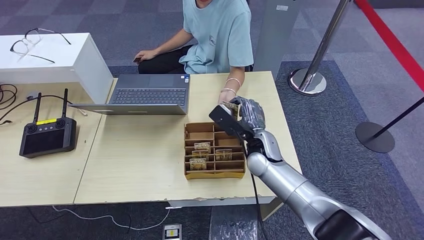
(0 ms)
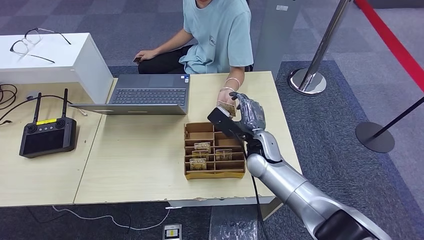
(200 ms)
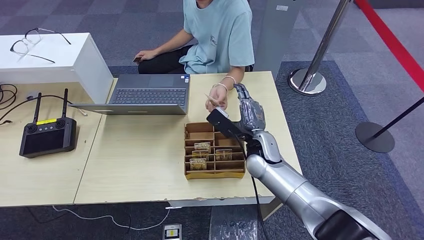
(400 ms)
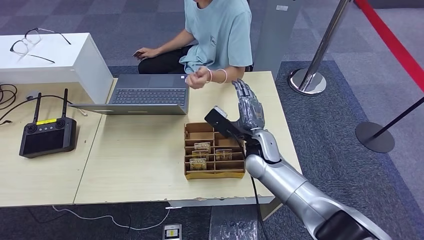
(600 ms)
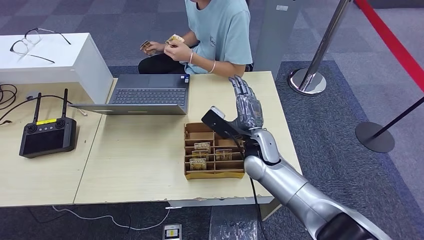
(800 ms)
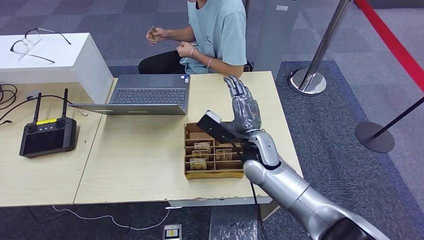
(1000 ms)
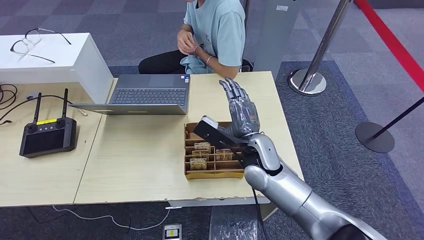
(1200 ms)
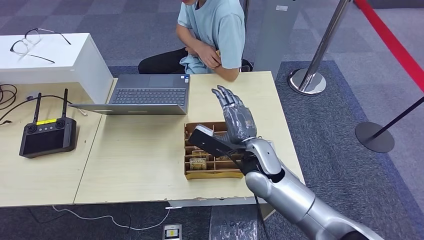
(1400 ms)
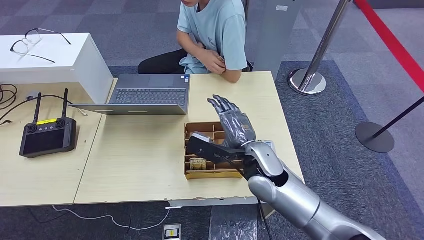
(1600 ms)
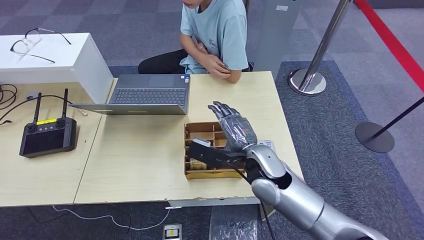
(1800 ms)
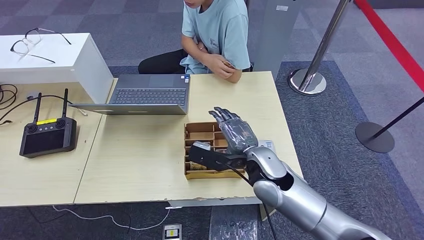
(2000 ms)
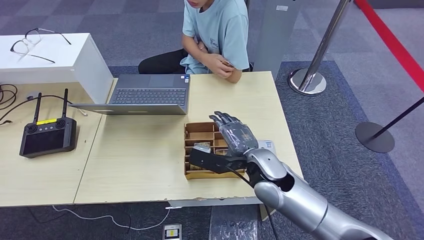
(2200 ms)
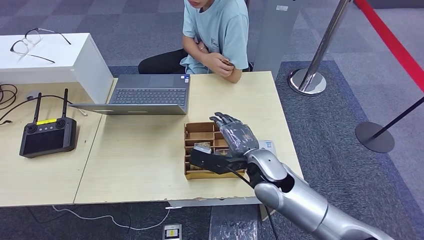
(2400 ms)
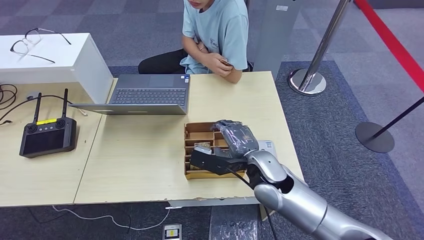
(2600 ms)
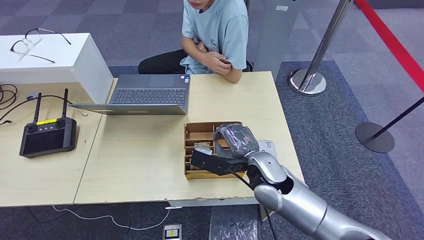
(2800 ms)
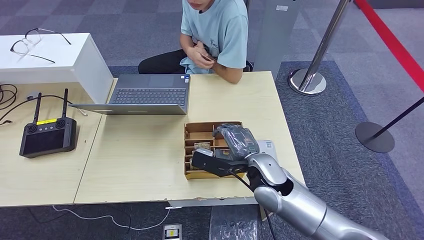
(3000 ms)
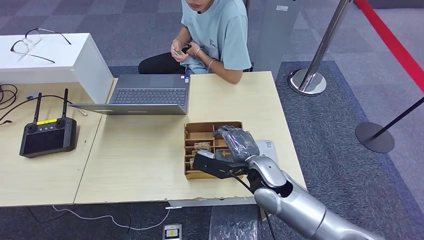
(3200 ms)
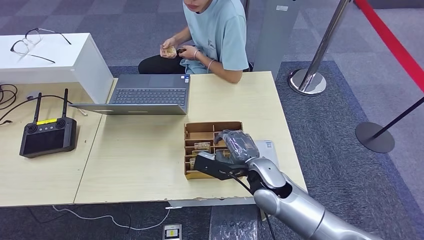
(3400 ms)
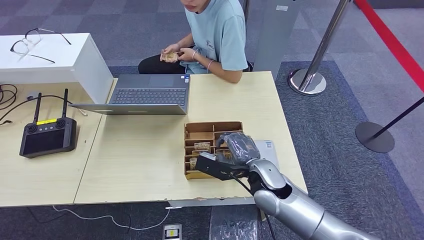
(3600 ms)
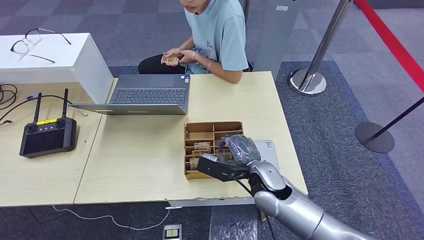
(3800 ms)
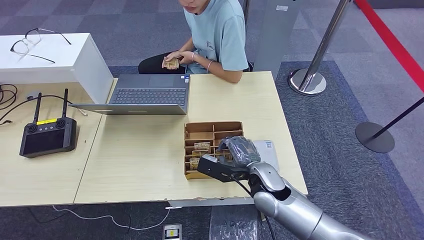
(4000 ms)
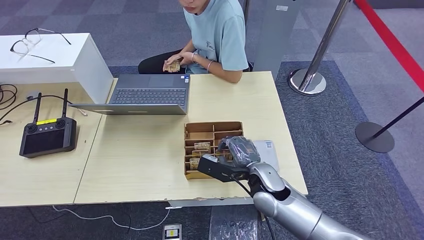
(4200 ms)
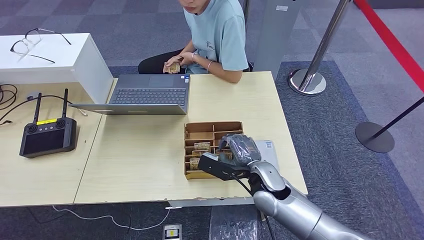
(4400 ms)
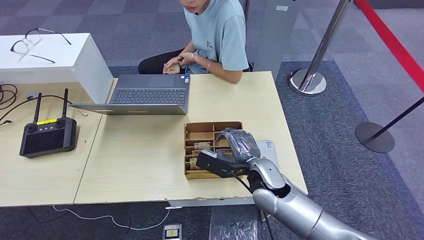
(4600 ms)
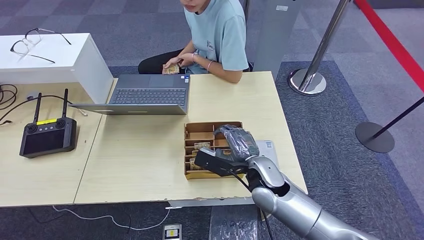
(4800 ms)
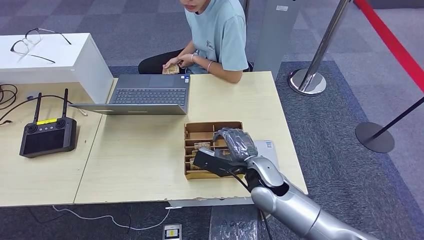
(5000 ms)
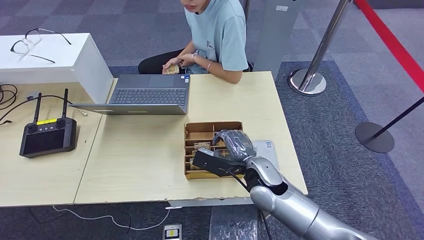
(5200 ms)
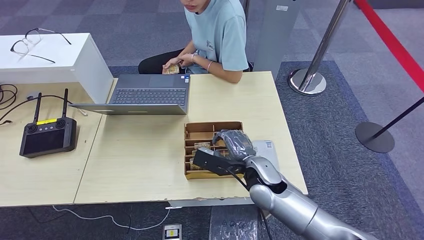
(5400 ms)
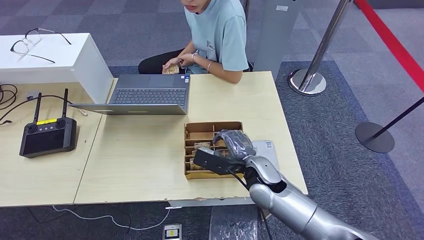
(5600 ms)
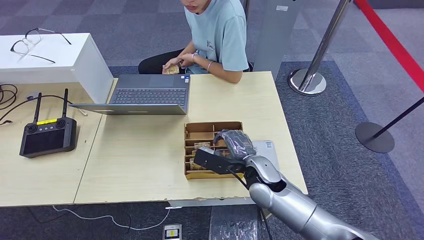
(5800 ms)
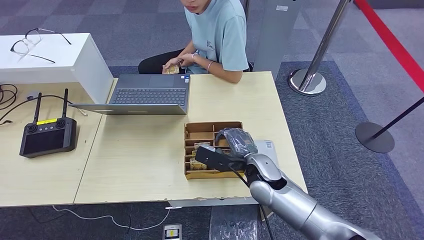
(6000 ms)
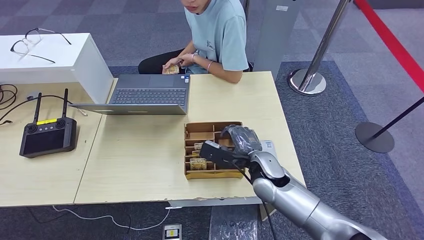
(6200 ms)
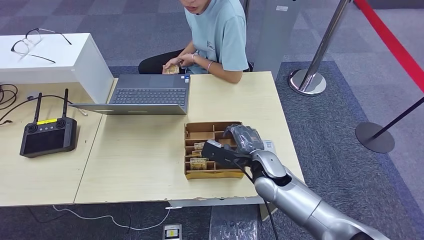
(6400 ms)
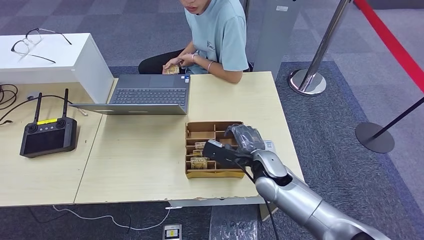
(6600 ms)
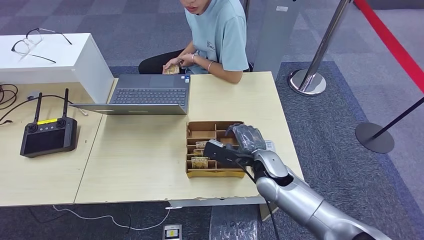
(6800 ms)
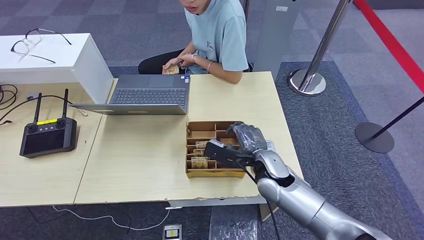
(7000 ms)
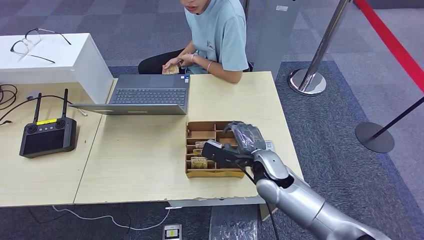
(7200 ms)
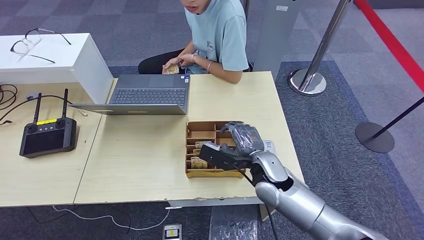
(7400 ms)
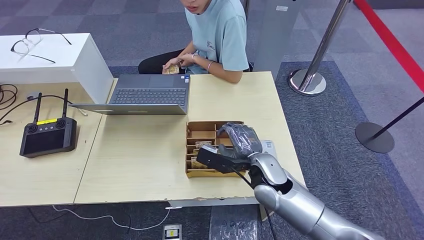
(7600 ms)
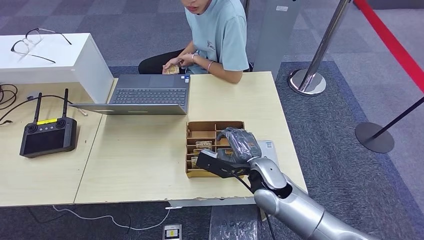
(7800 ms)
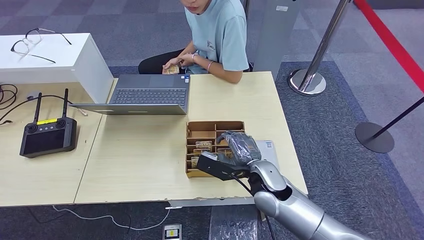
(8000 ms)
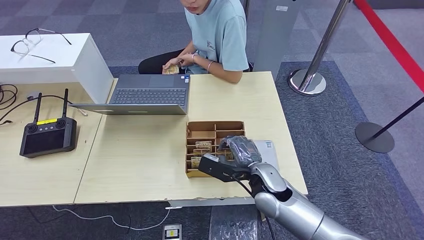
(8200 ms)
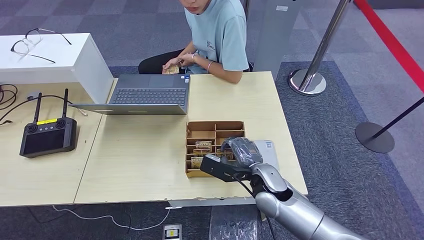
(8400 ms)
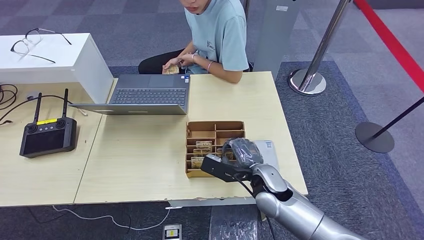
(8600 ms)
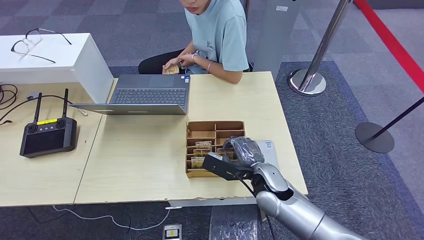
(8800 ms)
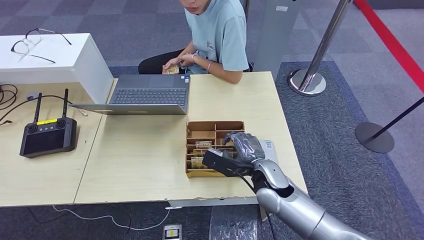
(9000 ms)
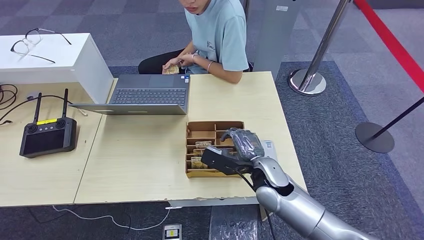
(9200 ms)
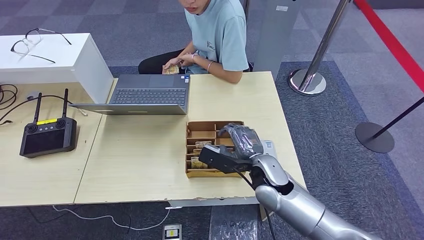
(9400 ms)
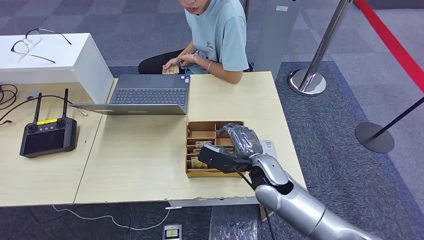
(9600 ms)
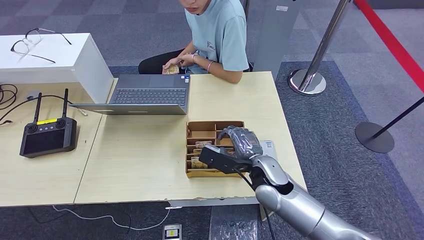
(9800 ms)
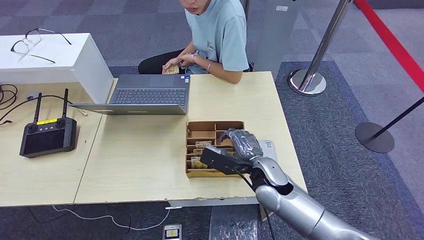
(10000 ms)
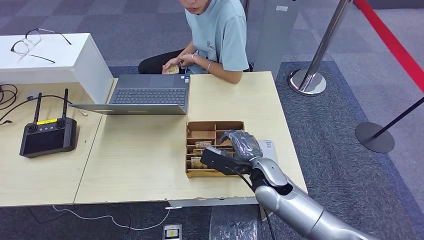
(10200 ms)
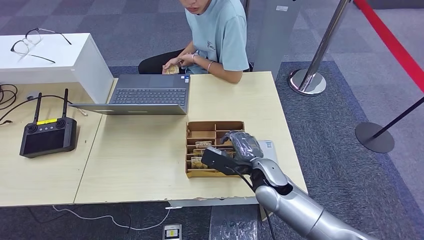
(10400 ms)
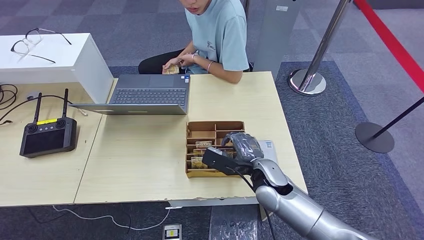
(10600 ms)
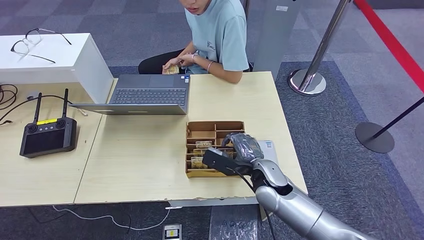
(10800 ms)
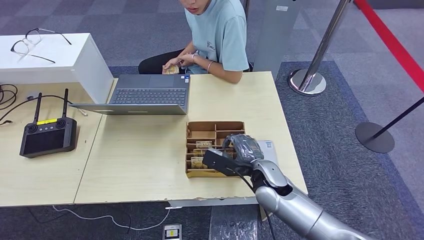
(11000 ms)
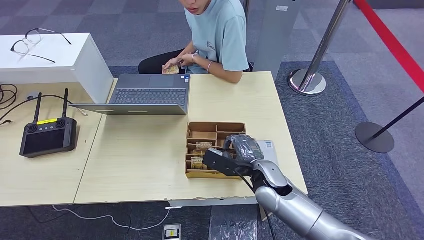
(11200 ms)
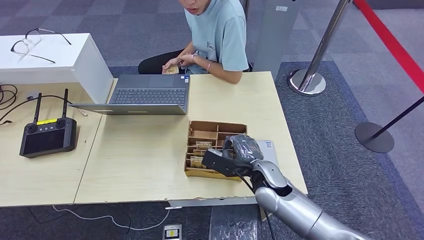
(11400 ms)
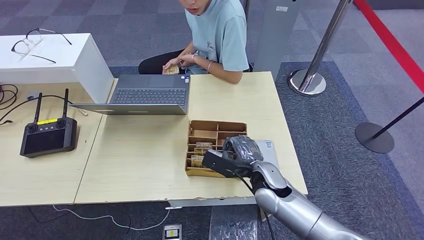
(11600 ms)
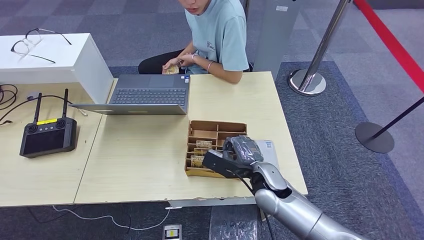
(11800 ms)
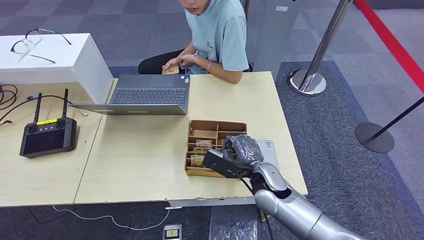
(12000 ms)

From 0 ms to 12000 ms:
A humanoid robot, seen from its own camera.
Step, from 0 ms to 2000 ms: Hand the ID card to the person.
From 0 ms to 1600 ms: The right hand is displaced backward by about 5 cm.
From 1600 ms to 3000 ms: The hands make only small movements.
From 3000 ms to 10400 ms: The hands make only small movements.
From 10400 ms to 12000 ms: Neither hand changes place.

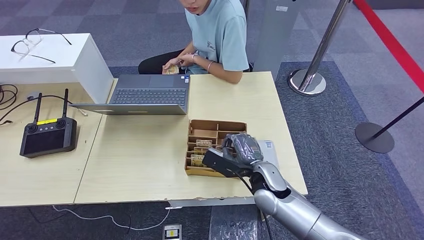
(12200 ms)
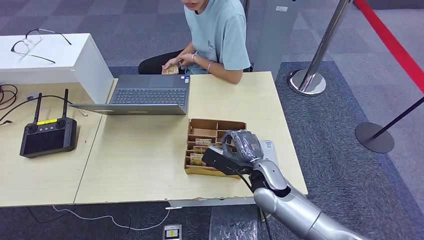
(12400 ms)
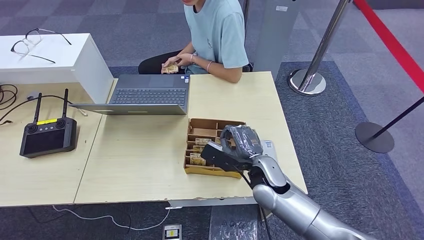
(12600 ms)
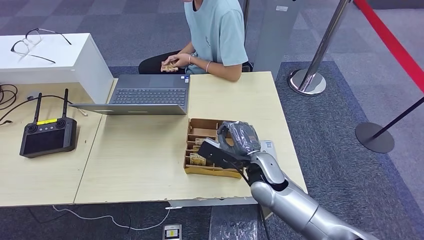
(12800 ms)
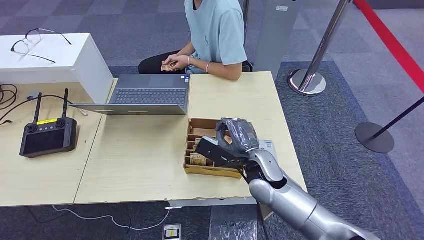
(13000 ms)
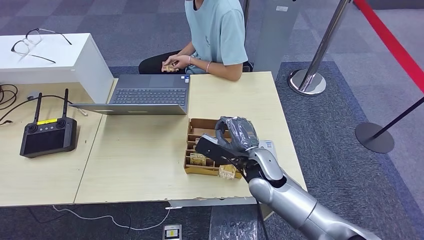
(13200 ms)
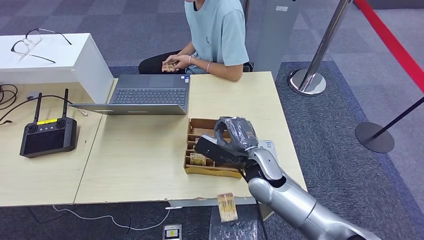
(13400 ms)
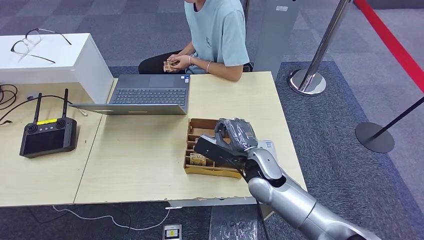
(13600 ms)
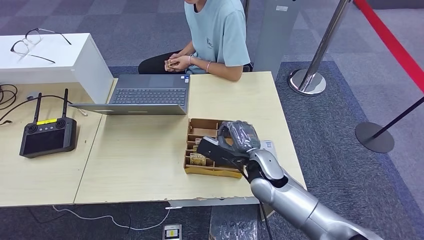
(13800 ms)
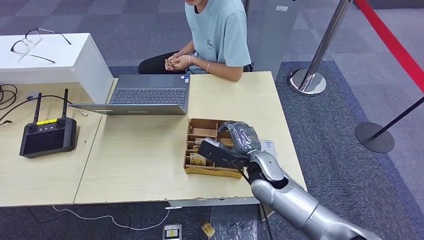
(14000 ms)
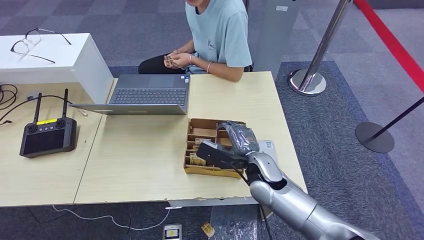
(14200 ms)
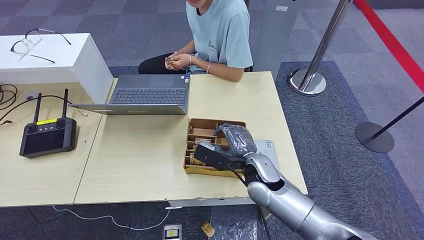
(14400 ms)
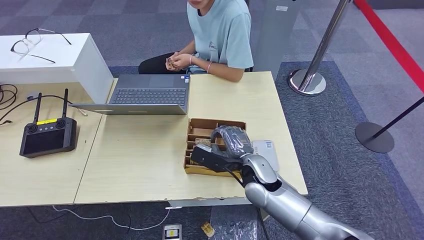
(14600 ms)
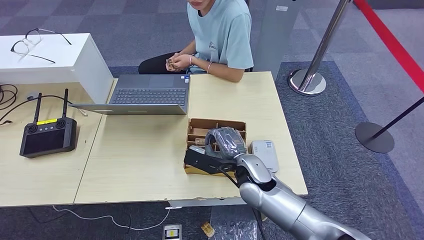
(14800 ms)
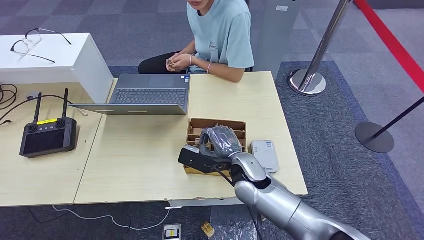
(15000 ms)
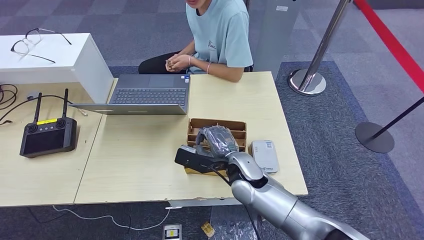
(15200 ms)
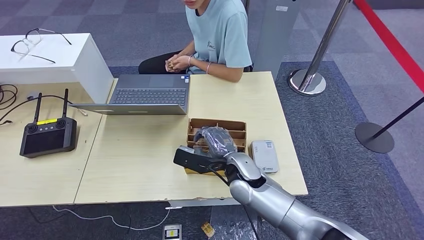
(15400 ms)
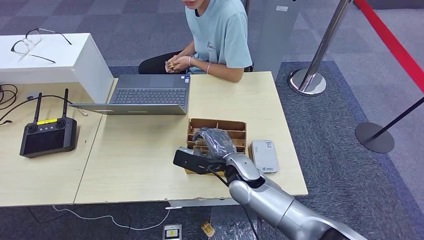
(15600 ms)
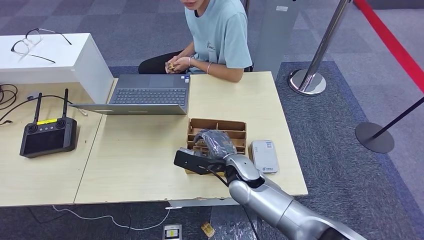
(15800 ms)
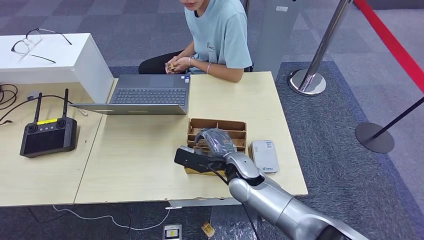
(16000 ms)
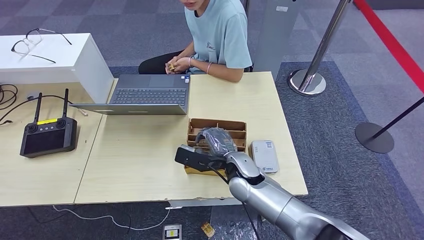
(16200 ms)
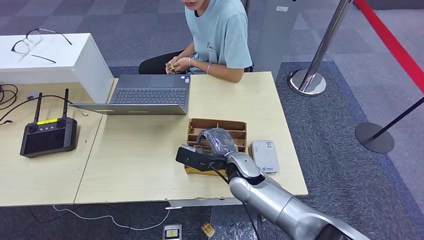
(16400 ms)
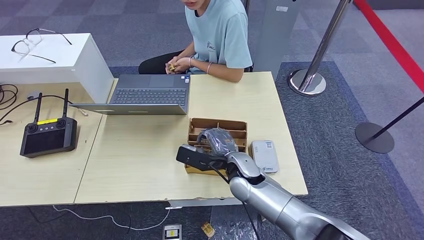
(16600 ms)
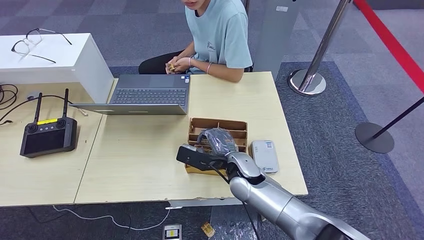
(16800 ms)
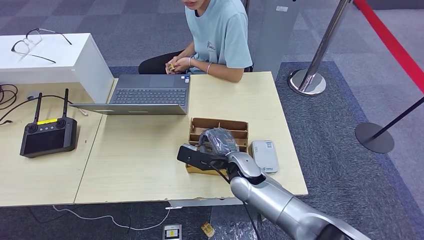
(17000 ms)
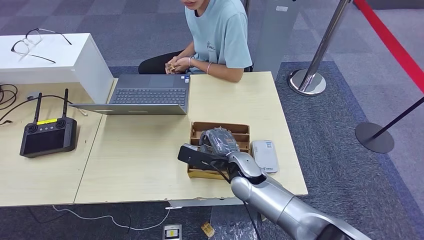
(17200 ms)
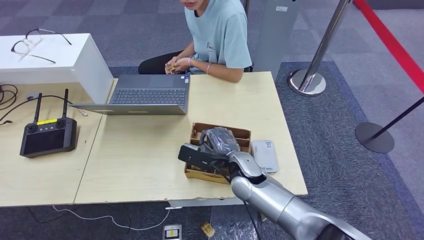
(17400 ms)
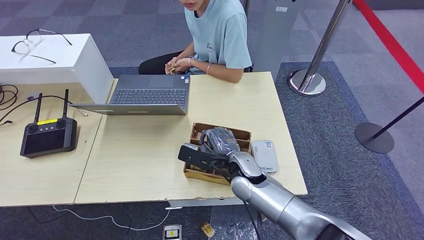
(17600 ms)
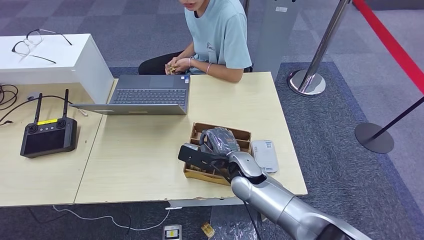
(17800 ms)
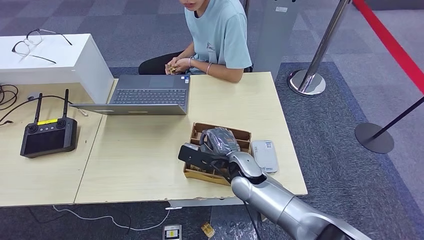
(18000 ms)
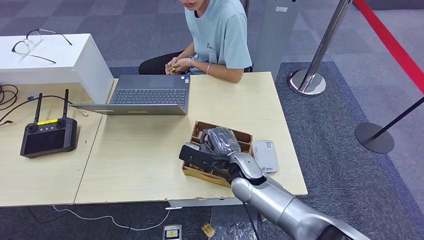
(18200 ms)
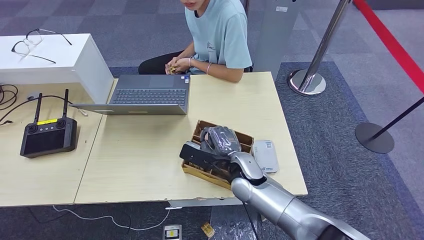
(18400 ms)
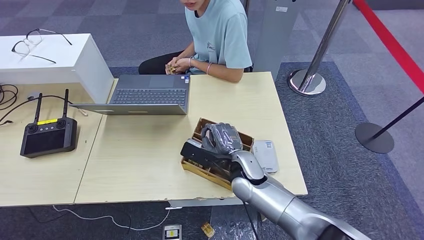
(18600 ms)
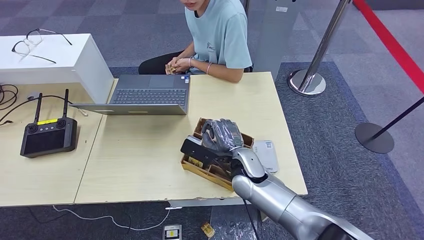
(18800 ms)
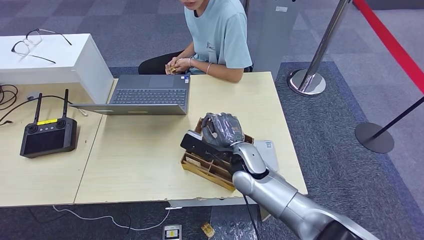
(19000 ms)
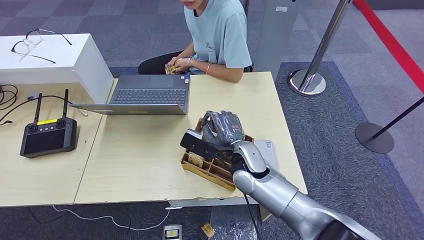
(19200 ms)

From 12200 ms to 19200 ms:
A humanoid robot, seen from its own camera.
From 12200 ms to 15000 ms: The hands stay close to where they were, moving slightly.
From 15000 ms to 16400 ms: There are only small adjustments of the hands.
From 16400 ms to 17800 ms: Neither hand changes place.
From 17800 ms to 19200 ms: The hands move only a little.
